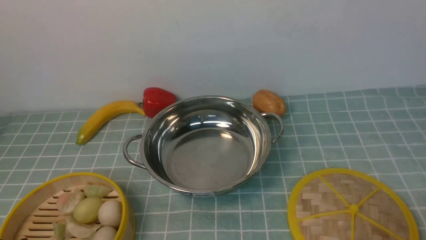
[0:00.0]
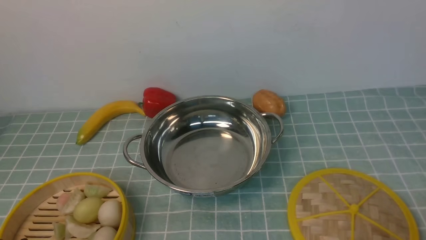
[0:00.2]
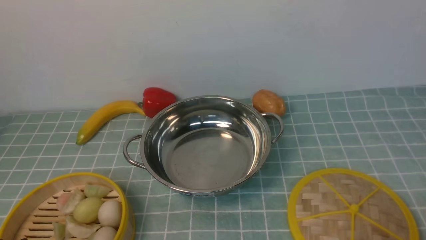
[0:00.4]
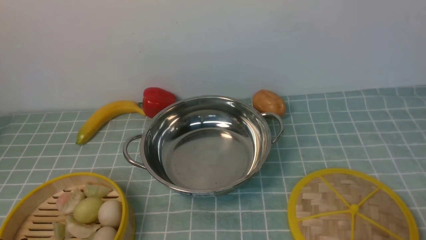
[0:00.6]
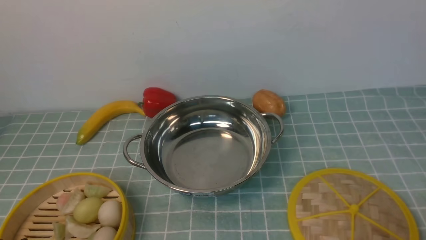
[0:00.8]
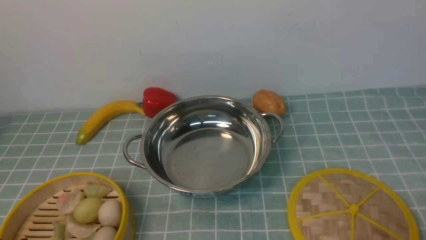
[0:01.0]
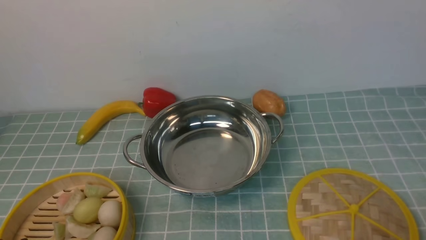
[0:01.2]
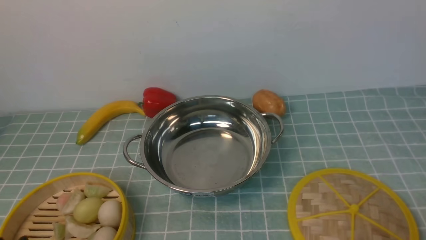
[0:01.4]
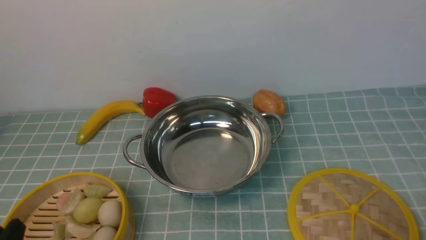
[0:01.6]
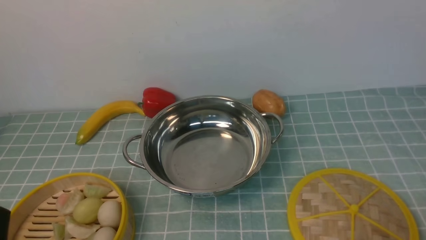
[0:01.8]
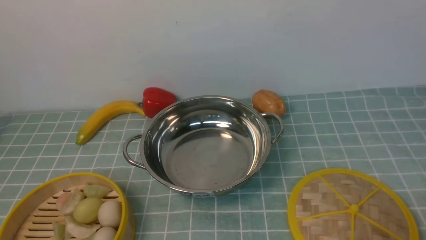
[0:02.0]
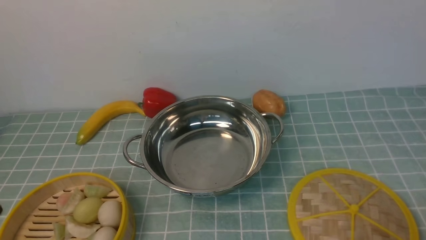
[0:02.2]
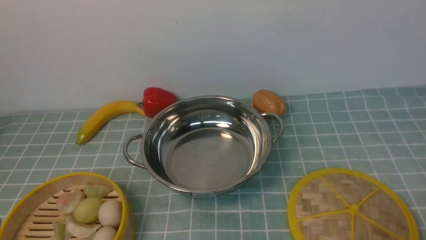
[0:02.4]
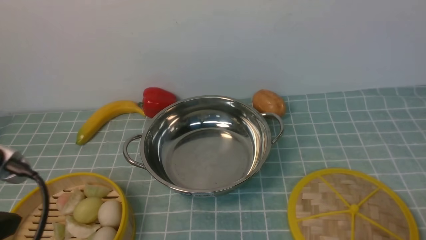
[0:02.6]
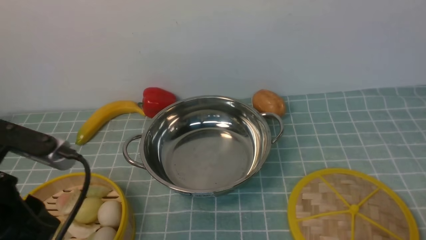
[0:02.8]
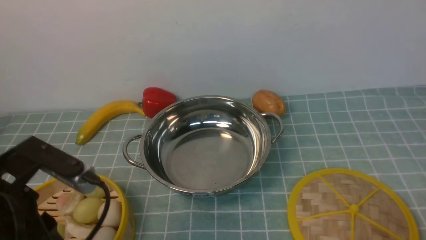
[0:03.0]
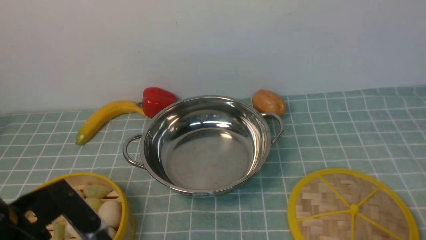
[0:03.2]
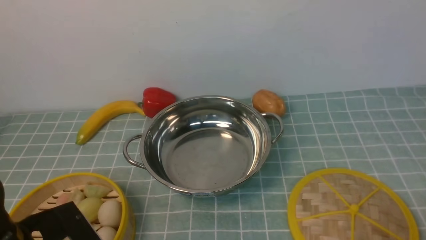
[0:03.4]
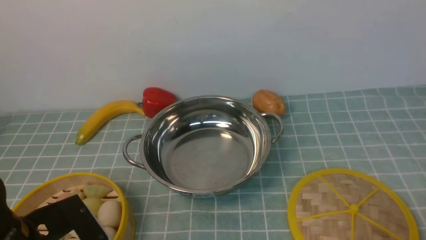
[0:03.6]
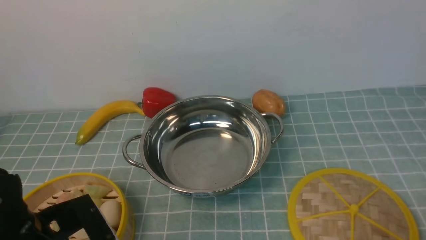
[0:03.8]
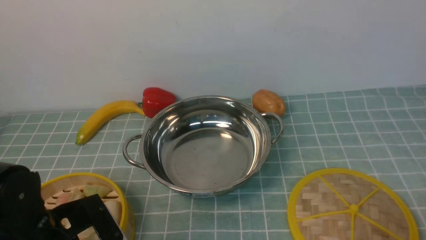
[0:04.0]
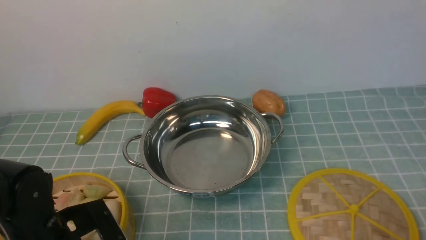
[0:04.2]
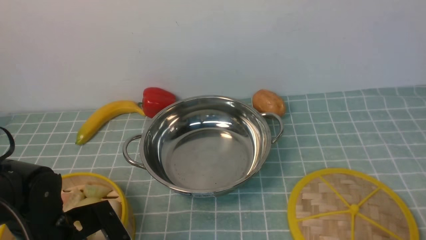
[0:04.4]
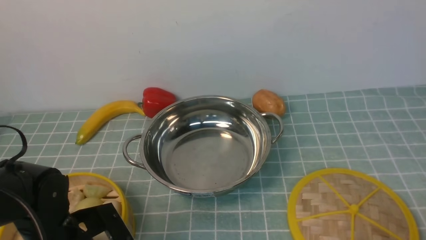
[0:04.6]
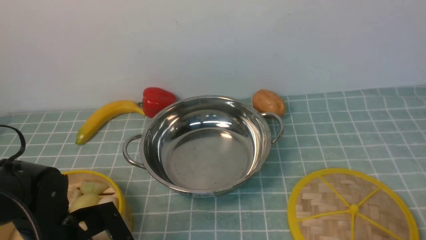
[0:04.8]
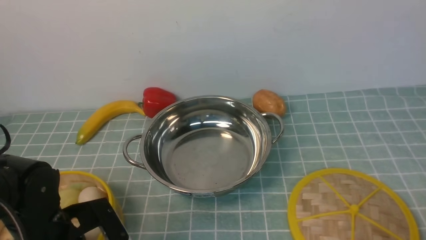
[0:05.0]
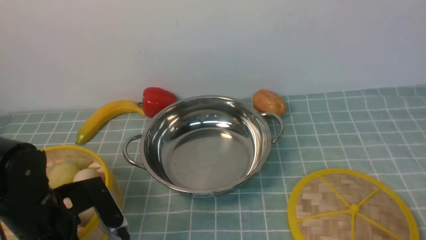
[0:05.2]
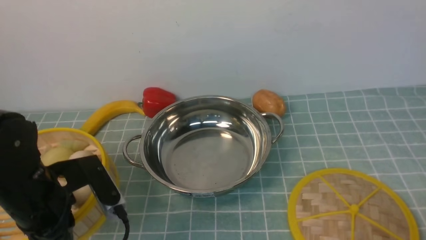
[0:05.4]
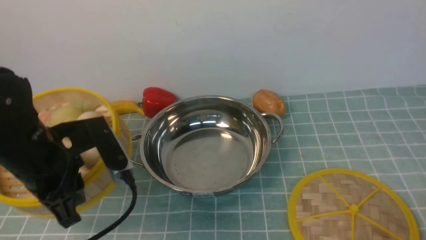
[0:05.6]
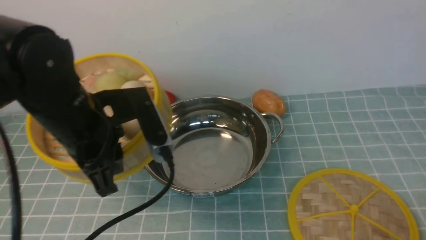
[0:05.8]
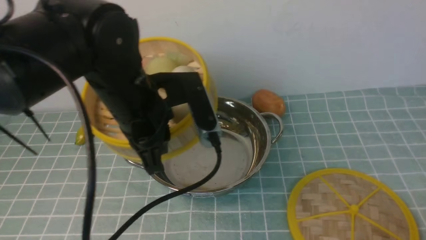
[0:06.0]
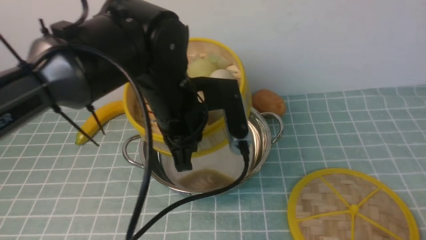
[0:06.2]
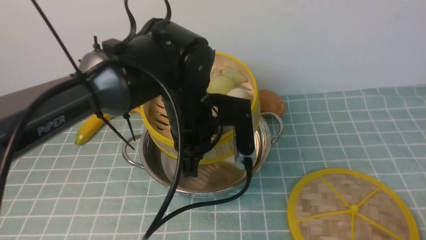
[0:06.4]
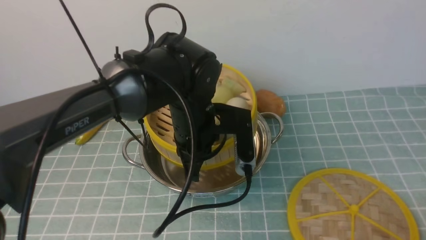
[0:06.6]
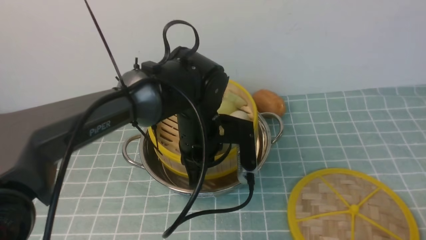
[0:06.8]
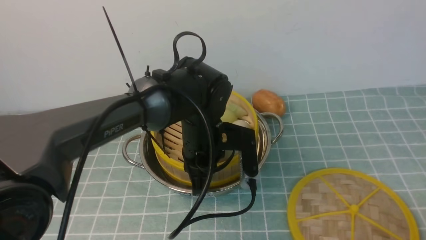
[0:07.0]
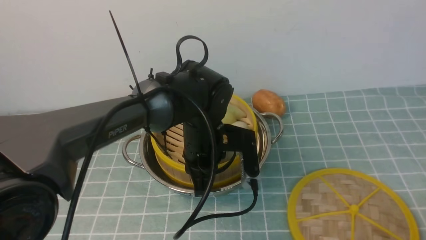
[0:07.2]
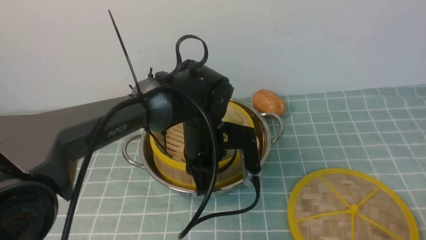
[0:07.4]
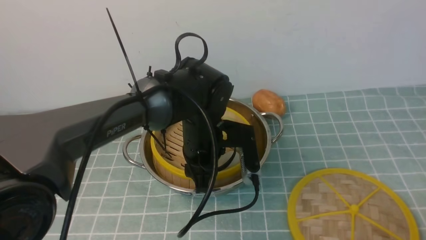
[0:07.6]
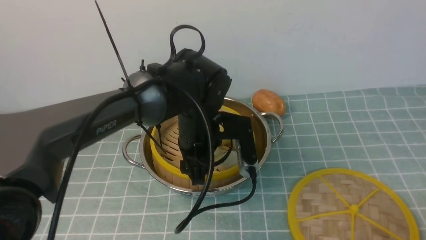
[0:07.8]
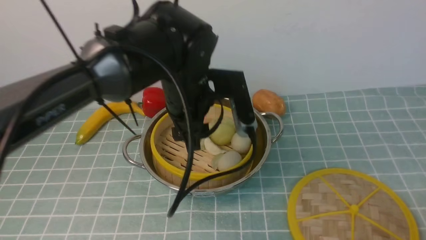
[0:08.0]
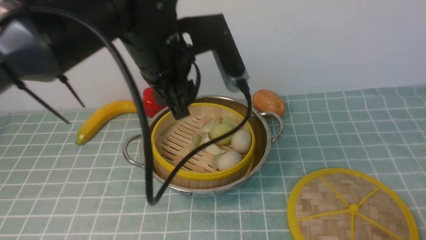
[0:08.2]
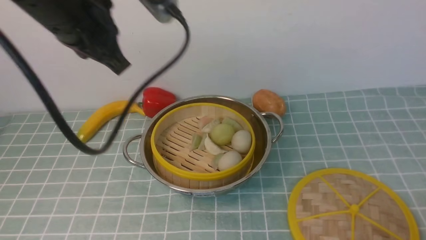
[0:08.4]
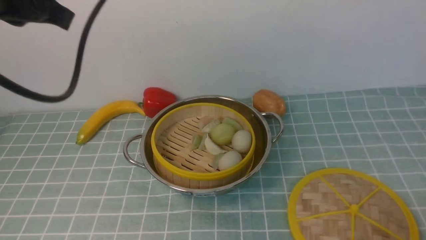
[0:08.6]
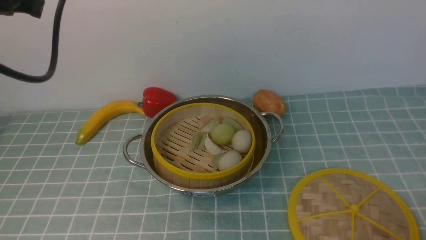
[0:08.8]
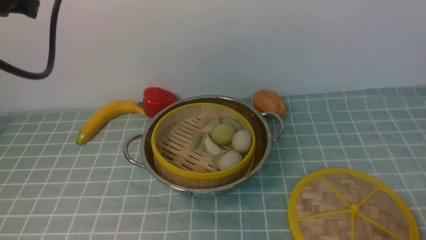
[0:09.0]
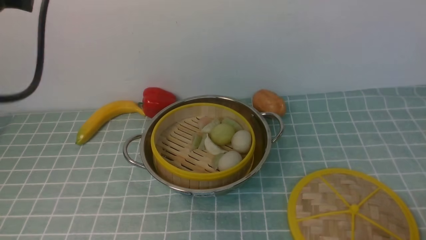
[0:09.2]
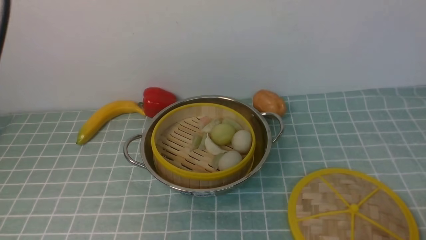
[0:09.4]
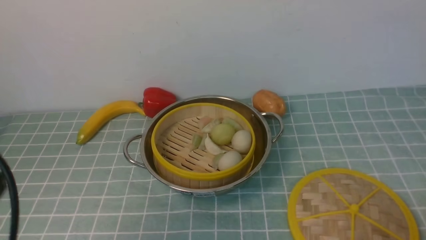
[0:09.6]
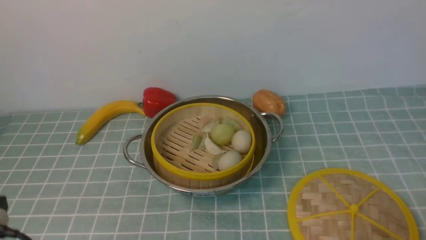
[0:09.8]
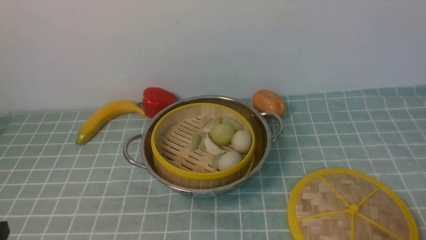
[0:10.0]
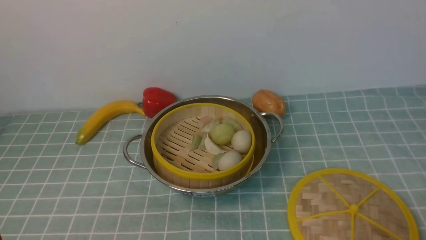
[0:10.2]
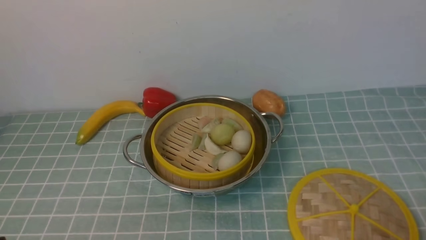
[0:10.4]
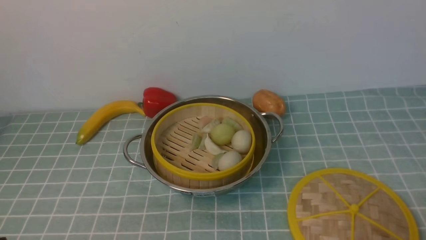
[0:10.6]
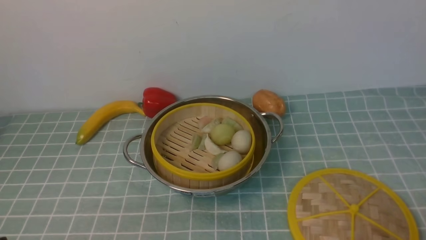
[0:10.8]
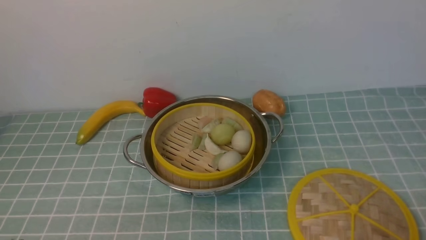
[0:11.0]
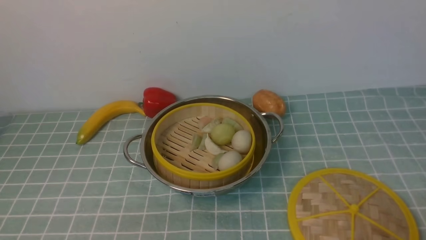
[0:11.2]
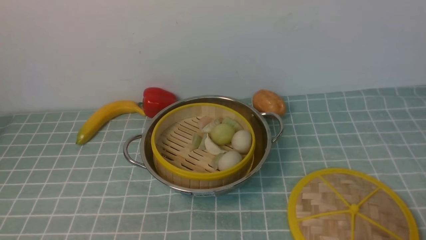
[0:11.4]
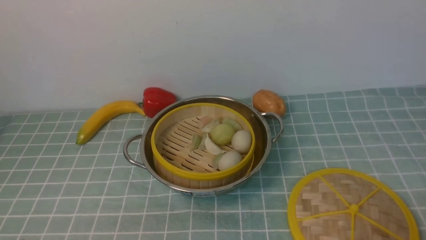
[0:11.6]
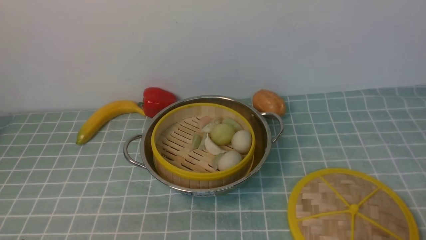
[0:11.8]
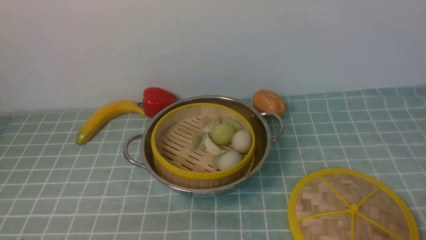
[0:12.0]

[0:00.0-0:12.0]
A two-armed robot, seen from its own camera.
Task of the whole recording: place the steamer in the pot on the blue tablecloth, and put the lid on the steamer.
Step, 0:00.0 to 0:05.2: use the left arm to lift the steamer closest to it.
Step, 0:05.4 to 0:08.0: use the left arm to put the steamer into the iron steamer pot in the middle.
0:01.6 to 0:03.0: The left gripper moves forward and upward, some 15 cm.
0:03.0 to 0:04.4: The left gripper heads downward, covering approximately 10 cm.
0:04.4 to 0:06.0: The left gripper moves upward, to the right and forward, roughly 20 cm, and closes its fingers.
0:06.0 to 0:07.6: The left gripper heads downward, to the right and forward, covering about 15 cm, and opens its fingers.
0:07.6 to 0:09.0: The left gripper heads upward and to the left, covering approximately 35 cm, and closes its fingers.
0:09.0 to 0:10.4: The left gripper is displaced downward and backward by approximately 35 cm.

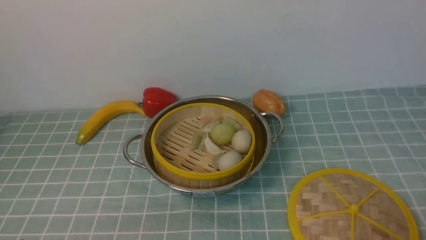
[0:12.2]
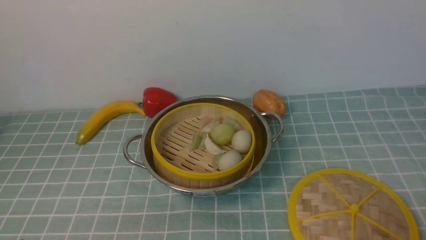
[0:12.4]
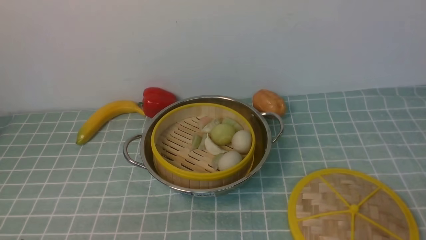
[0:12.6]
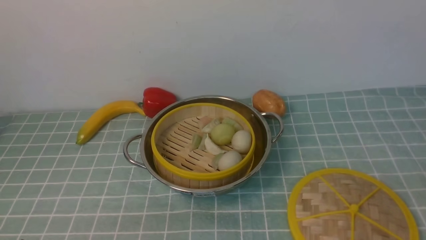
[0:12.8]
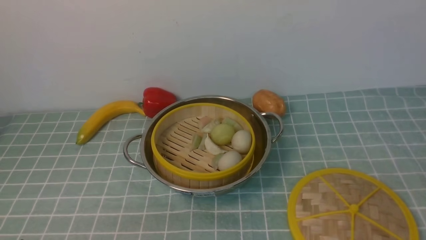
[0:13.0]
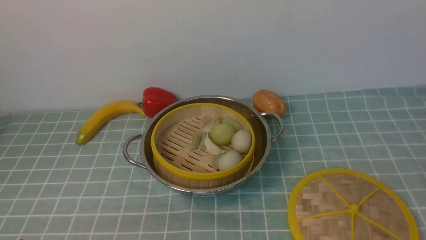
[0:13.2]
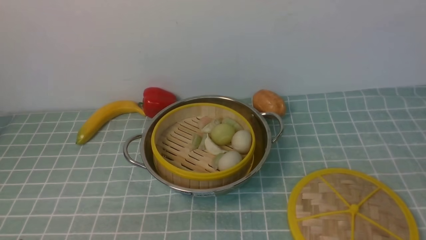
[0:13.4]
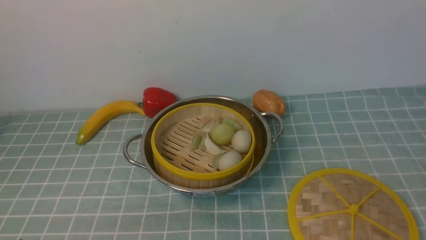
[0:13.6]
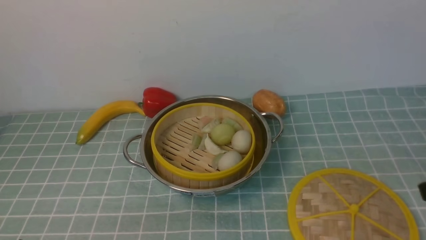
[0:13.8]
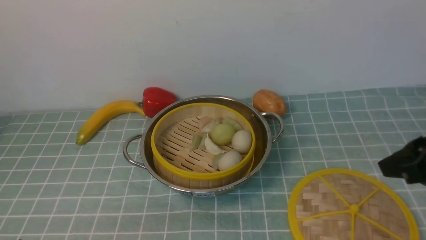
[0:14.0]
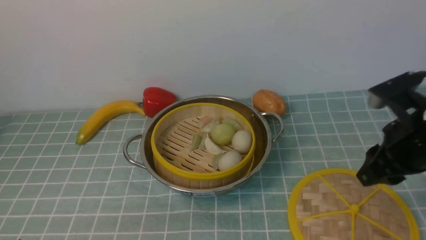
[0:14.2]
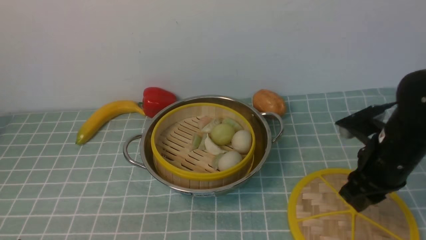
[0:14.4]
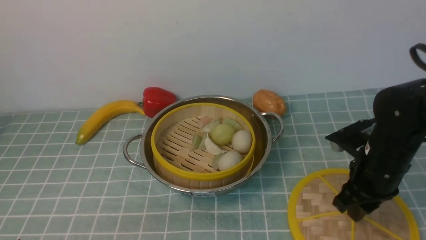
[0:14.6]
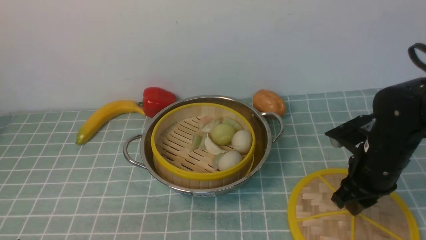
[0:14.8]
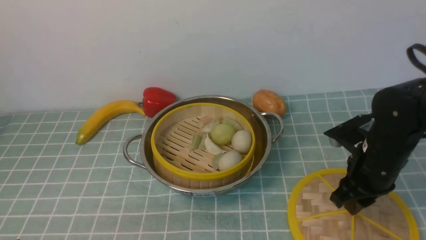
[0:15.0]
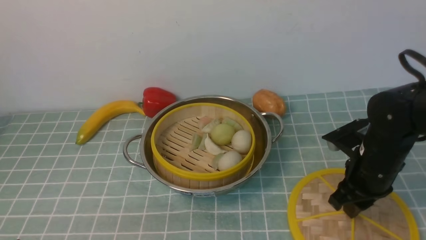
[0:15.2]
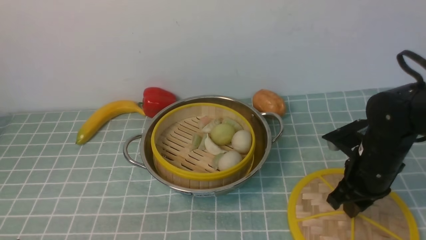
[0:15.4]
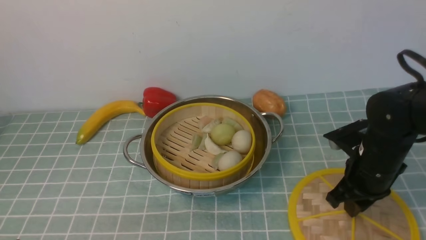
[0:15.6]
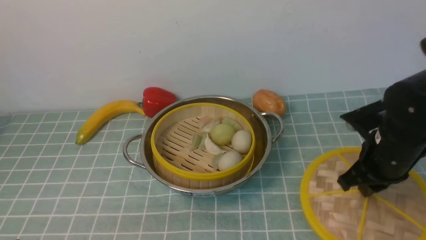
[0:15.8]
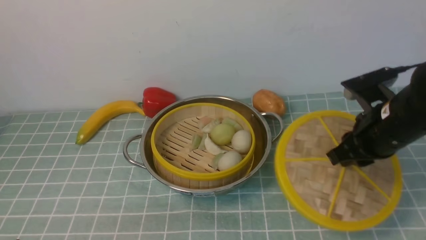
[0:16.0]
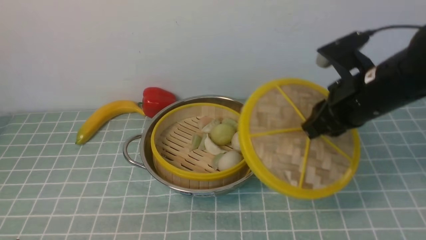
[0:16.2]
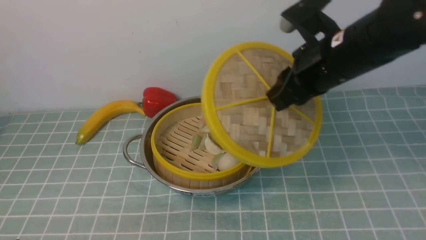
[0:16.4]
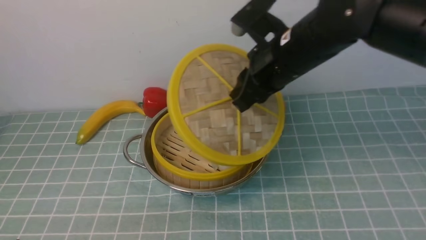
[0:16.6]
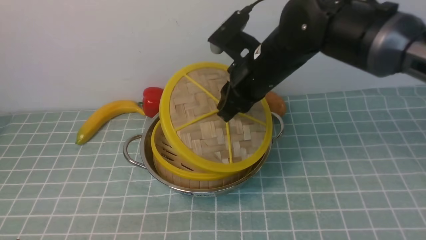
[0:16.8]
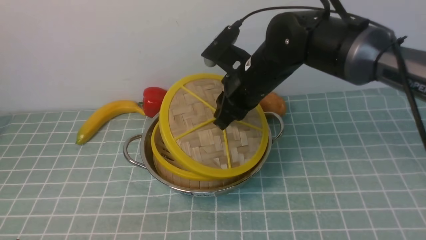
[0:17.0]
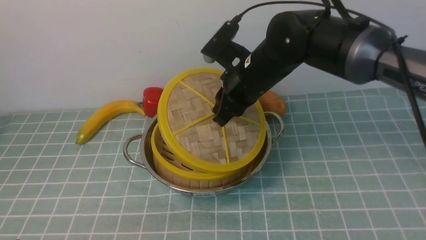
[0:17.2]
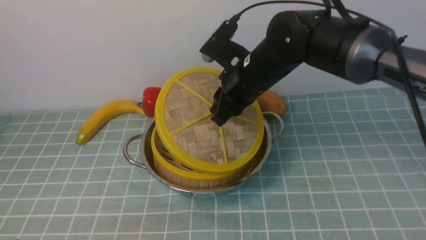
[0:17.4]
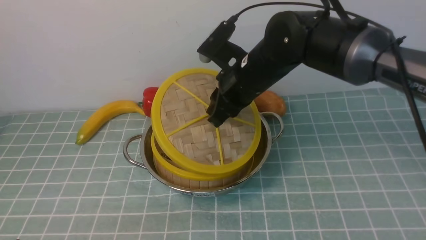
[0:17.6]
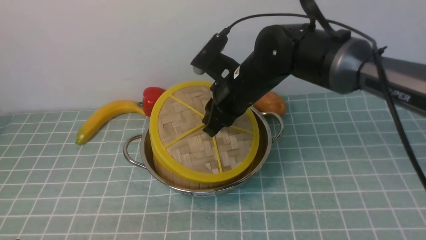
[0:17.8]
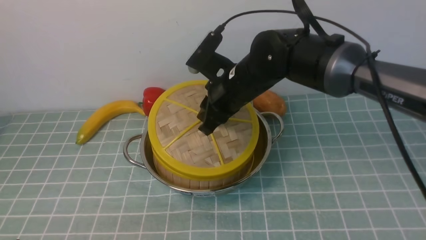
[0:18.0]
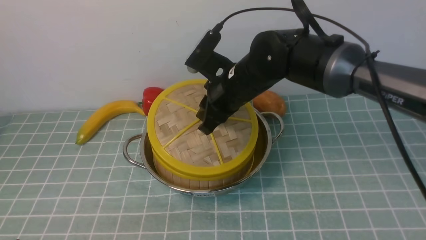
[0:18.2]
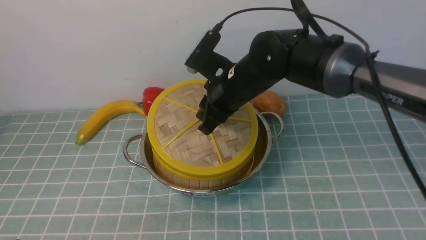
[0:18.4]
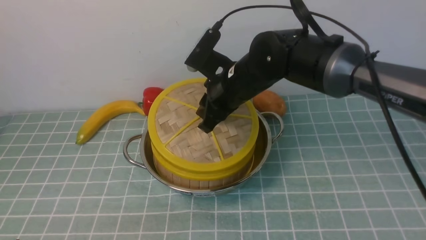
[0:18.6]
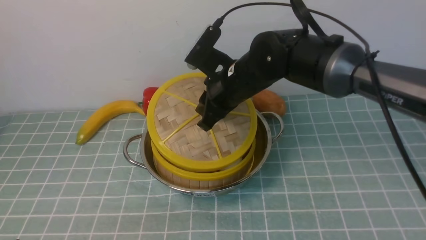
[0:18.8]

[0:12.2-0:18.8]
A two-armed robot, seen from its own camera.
Task of the whole recording: place the steamer in the pot on the blue tablecloth, and put the lid on the steamer.
Step, 0:12.2 to 0:16.0: use the right arm to lift the lid of the steamer.
0:13.8 to 0:15.4: The right gripper moves forward, downward and to the left, about 20 cm.
0:15.4 to 0:17.2: The right gripper goes approximately 20 cm to the left, upward and forward.
0:17.2 to 0:18.8: The grippers make only small movements.
